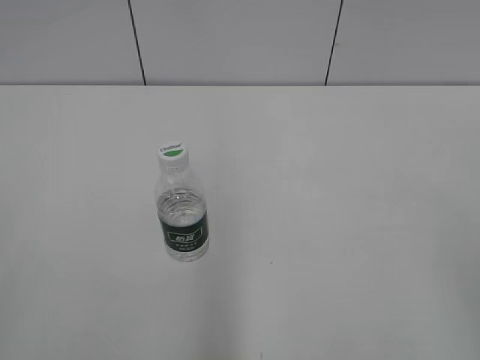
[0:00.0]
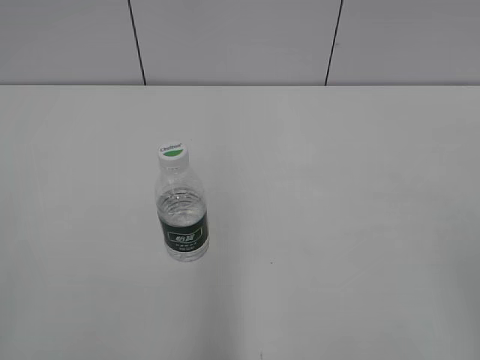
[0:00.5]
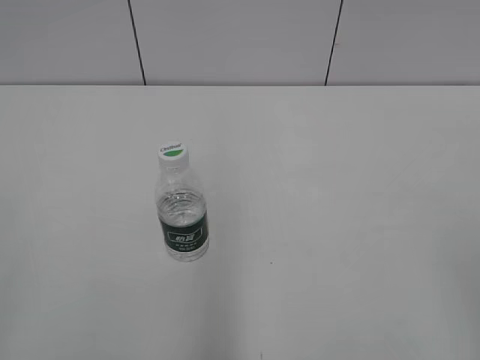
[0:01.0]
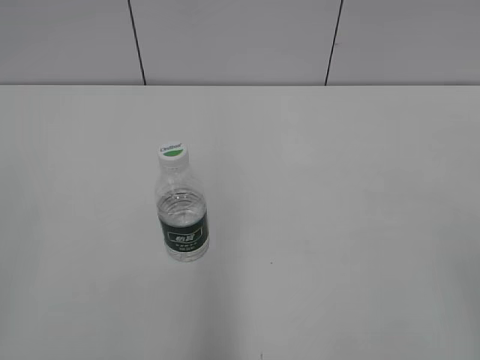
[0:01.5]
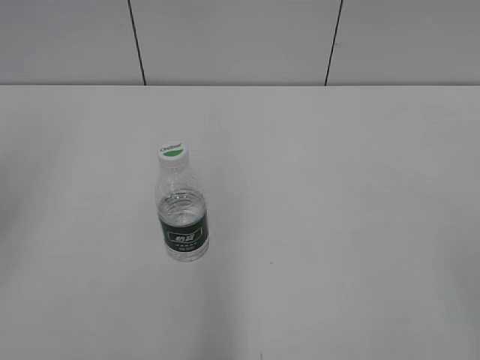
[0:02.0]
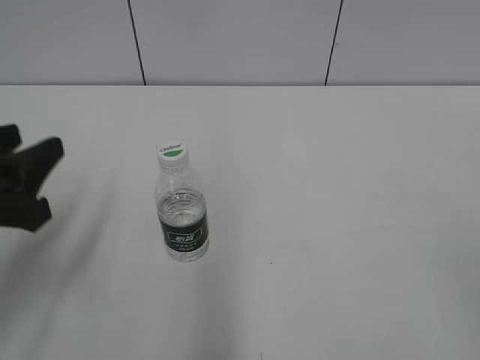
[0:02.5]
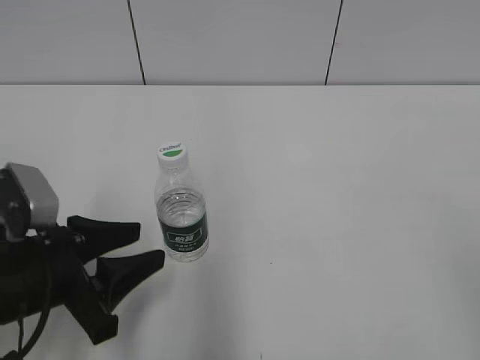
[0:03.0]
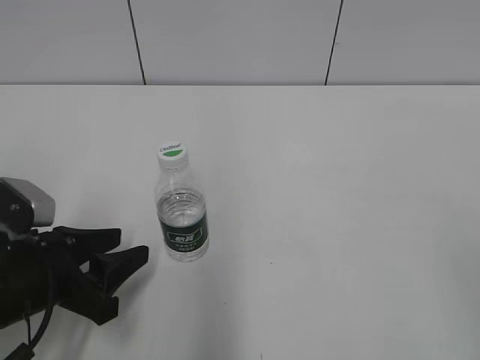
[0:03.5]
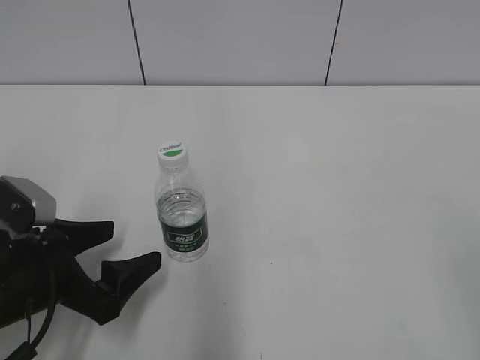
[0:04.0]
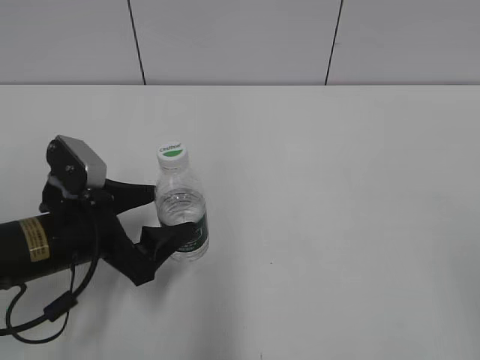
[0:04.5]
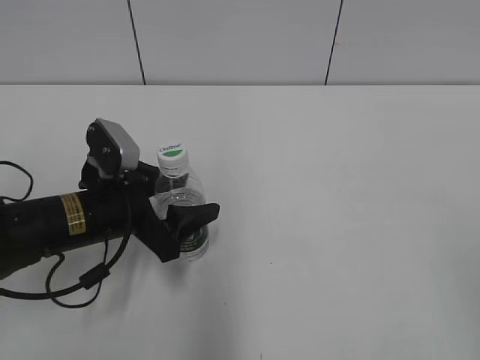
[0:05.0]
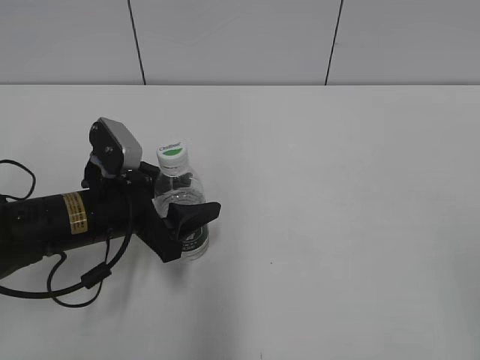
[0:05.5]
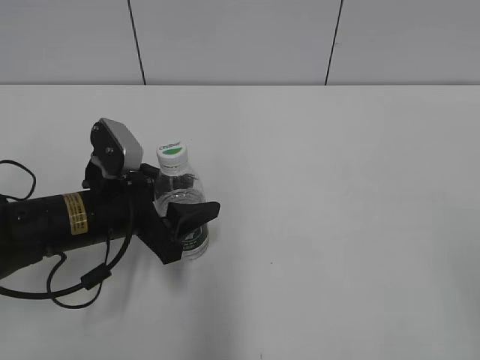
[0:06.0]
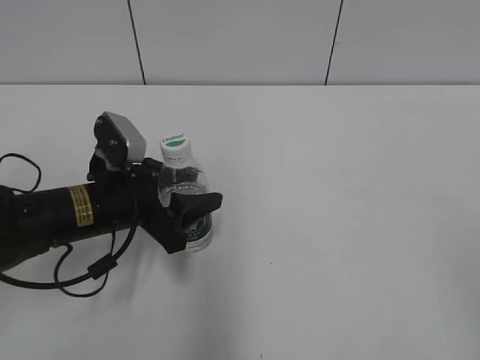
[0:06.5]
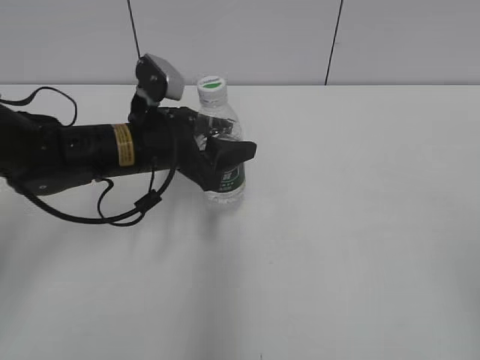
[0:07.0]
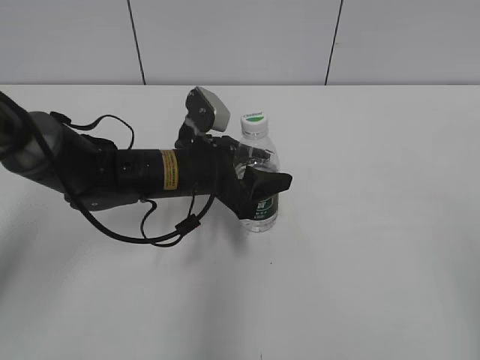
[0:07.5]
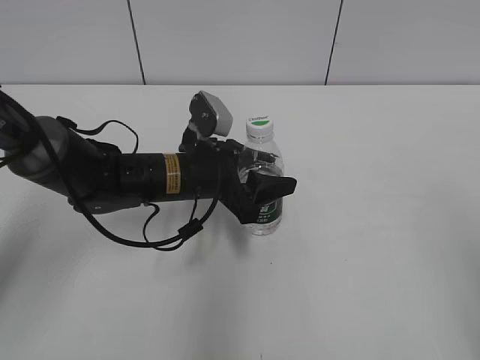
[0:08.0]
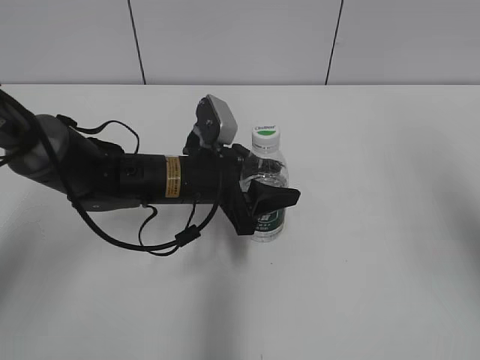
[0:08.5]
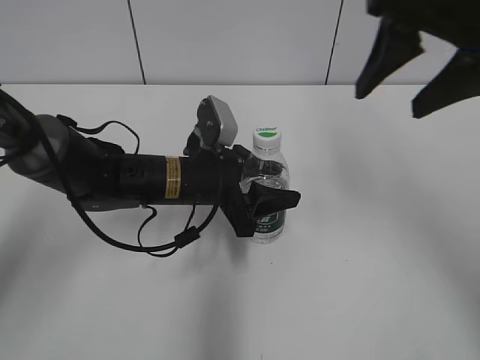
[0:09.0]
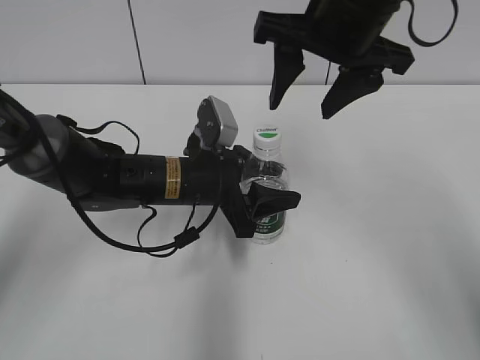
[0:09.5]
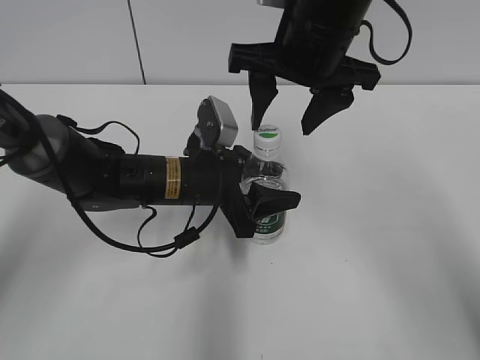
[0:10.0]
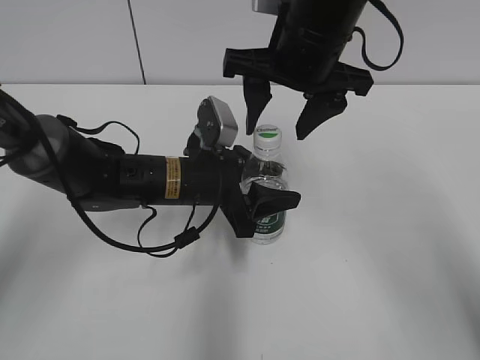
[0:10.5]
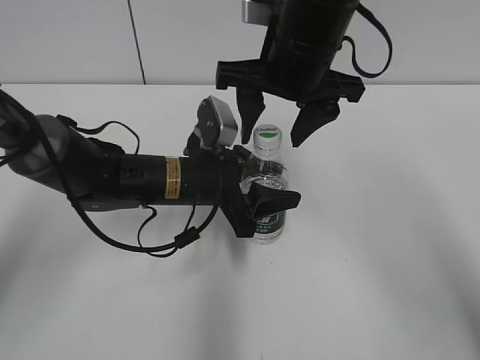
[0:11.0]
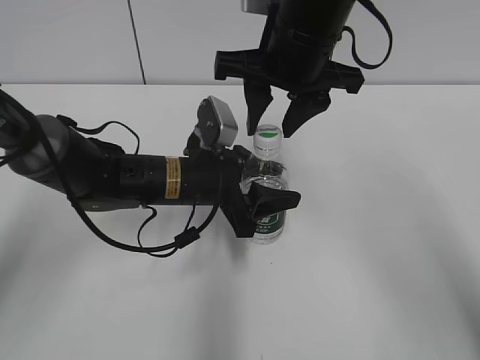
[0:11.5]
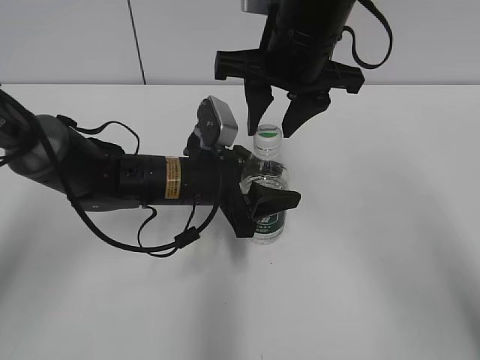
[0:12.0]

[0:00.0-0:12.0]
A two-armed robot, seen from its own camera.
Step, 0:00.0 to 0:05.5: Grasp the bottle and move it to the center of the table with the left gripper.
Step, 0:06.0 to 0:07.5: Lift the bottle and move it to the center of the table with the left gripper.
0:02.0 to 0:04.0: The left gripper shifts some 25 cm downward, and opens up.
0:04.0 to 0:06.0: The left gripper is displaced forward and to the right by roughly 10 cm, and closes.
0:06.0 to 0:08.0: The right gripper travels forward by some 5 cm; the left gripper heads to the right and forward, covering approximately 10 cm.
0:08.0 to 0:10.0: The right gripper moves forward and to the left, approximately 35 cm.
0:10.0 to 0:12.0: The right gripper closes.

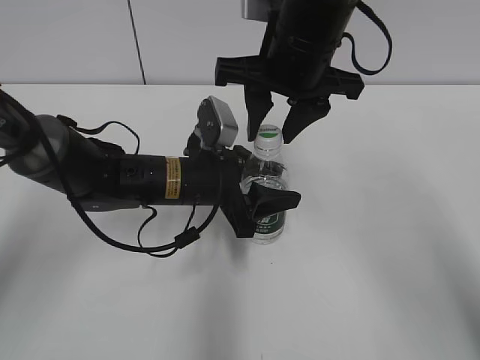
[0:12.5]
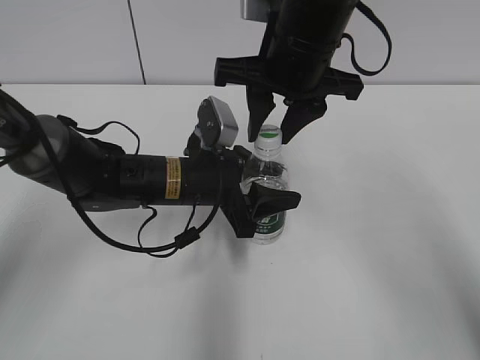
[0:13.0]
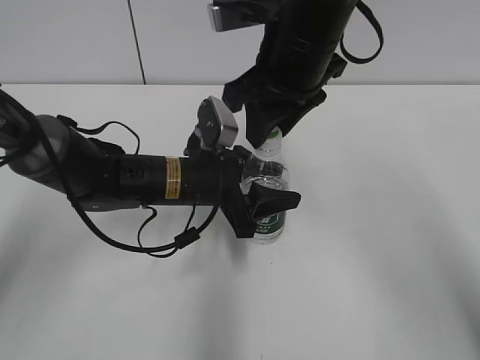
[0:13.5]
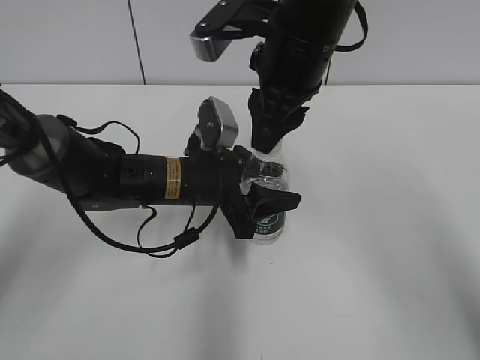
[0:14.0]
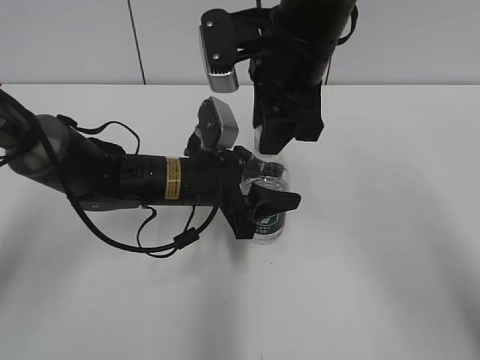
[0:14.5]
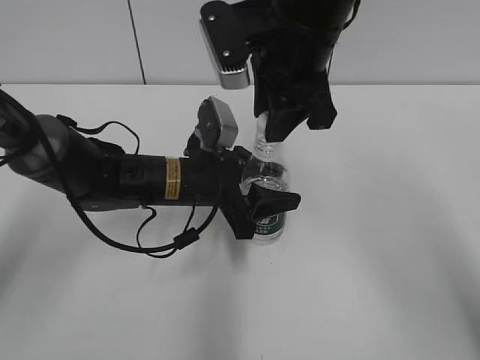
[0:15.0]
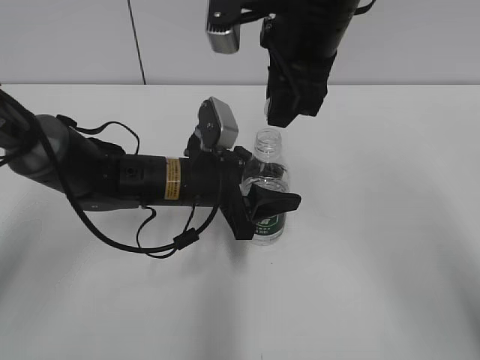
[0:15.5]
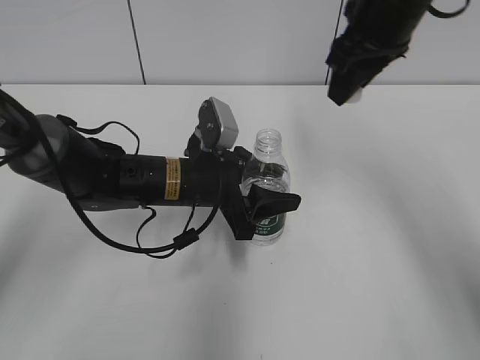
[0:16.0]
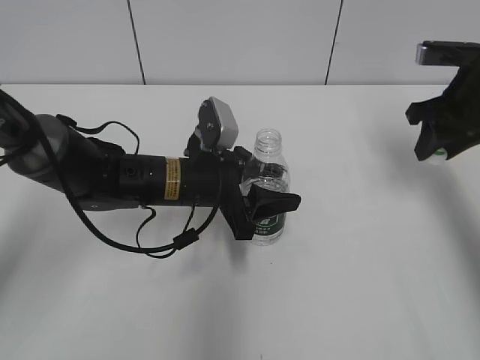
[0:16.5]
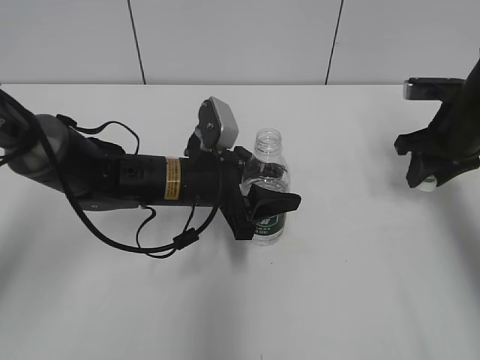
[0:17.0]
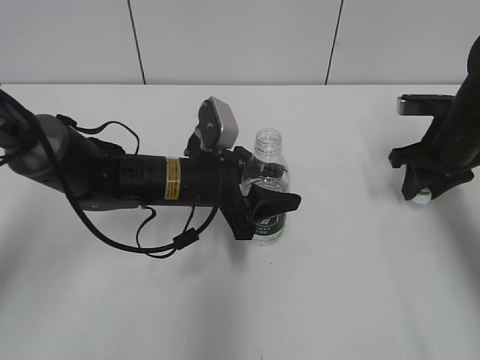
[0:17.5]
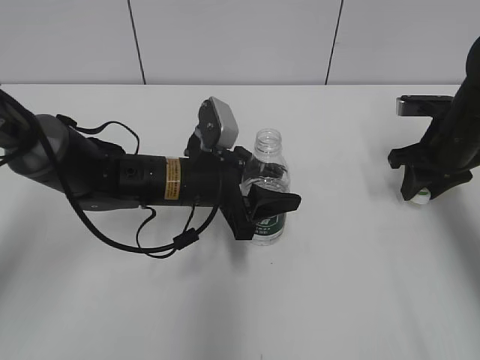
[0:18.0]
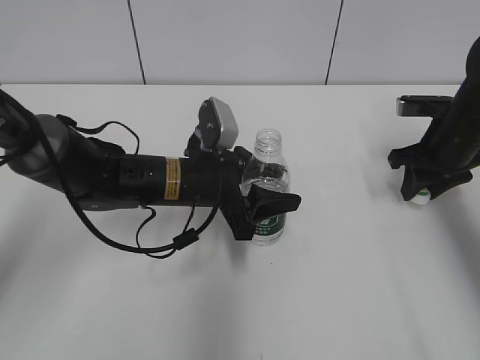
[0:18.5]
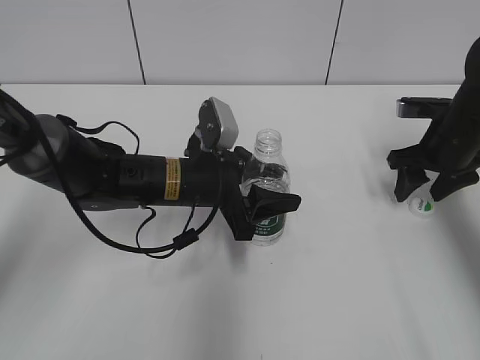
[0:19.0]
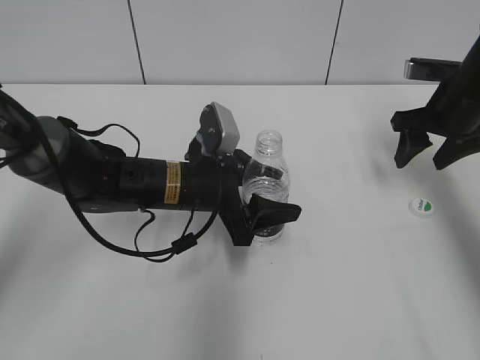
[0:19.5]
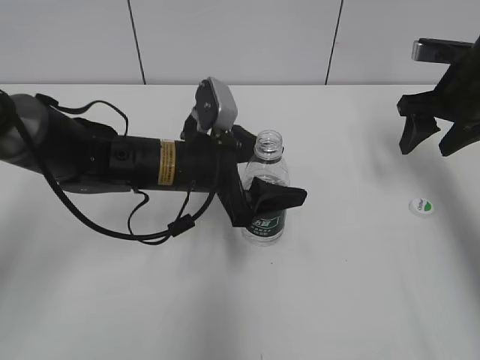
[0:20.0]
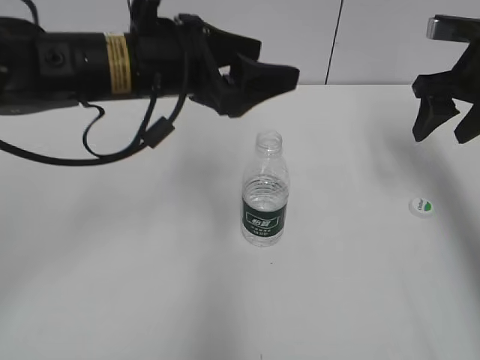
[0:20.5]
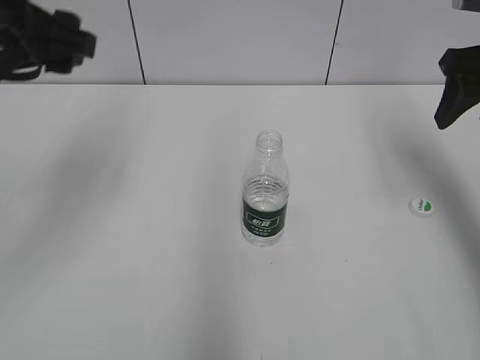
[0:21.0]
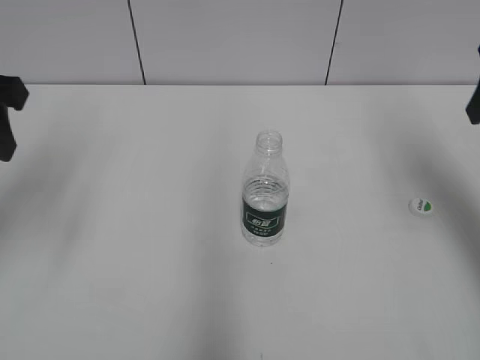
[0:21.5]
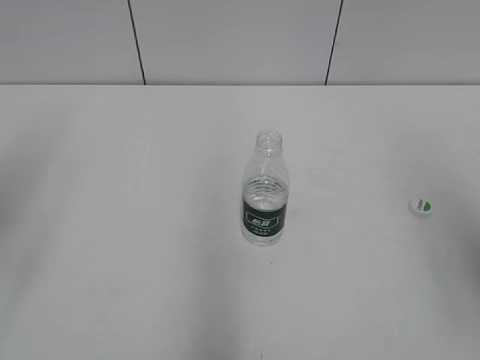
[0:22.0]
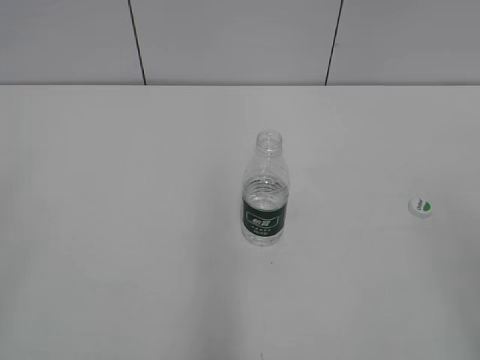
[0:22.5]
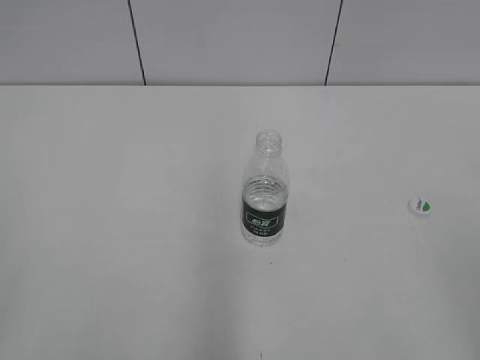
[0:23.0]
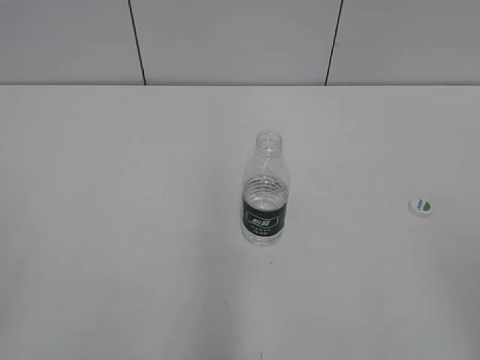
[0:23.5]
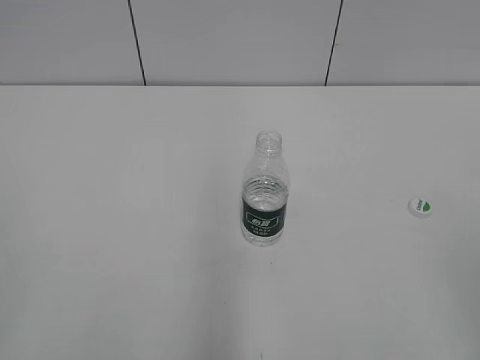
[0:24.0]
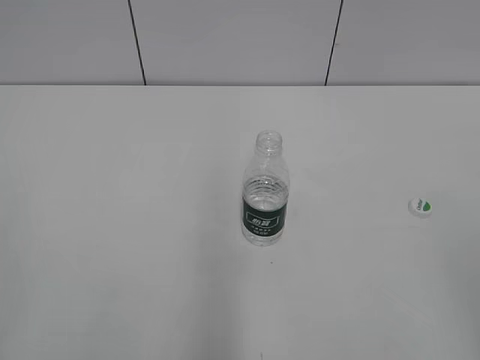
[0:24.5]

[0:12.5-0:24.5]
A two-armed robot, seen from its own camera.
Step, 0:12.5 to 0:15.5: Unscrew the bottle cap with the right gripper while holding the bottle with the left gripper.
Step, 0:16.0 to 0:19.0: Place the bottle cap on the table with the right gripper.
Step, 0:19.5 to 0:20.0: Place the bottle on the table with the left gripper.
0:14.5 to 0:16.5: The right gripper travels to the right by some 20 cm.
0:16.5 to 0:18.5: The right gripper shifts approximately 5 cm downward.
0:18.5 to 0:20.5: The two grippers go roughly 15 cm upward. The left gripper opens, while the right gripper opens up.
0:20.5 to 0:22.5: The left gripper is displaced backward and to the left by roughly 35 cm, and closes up. Meanwhile the right gripper is displaced backward by approximately 35 cm.

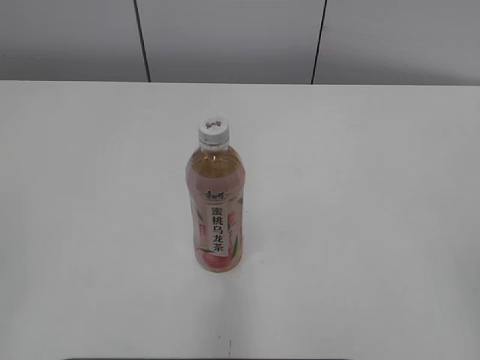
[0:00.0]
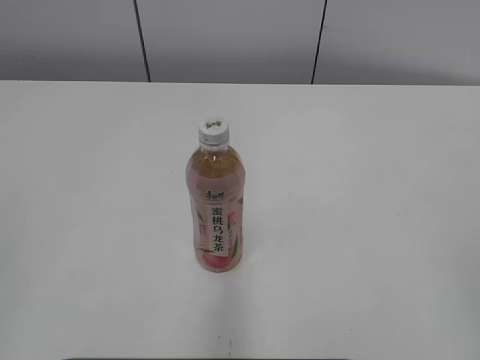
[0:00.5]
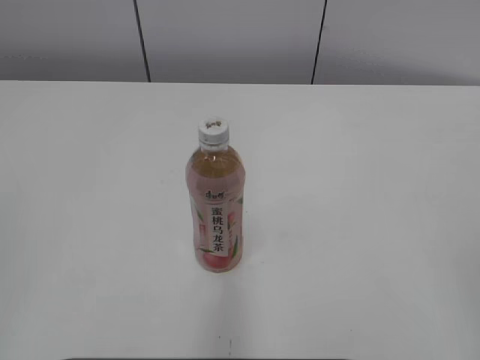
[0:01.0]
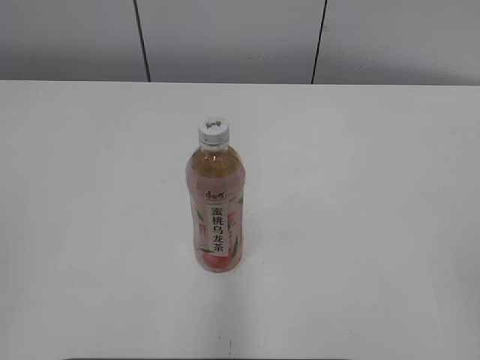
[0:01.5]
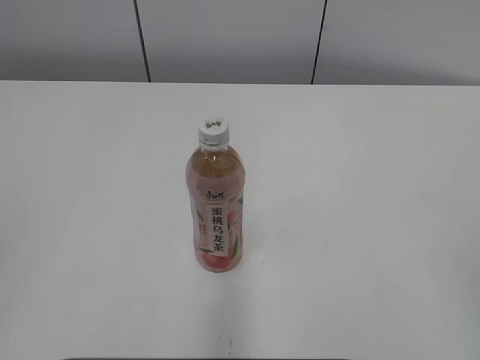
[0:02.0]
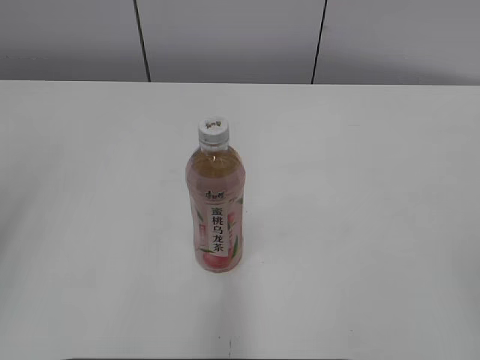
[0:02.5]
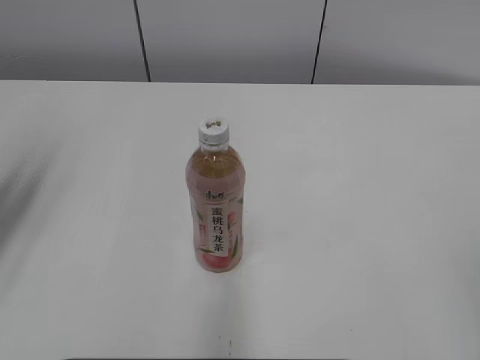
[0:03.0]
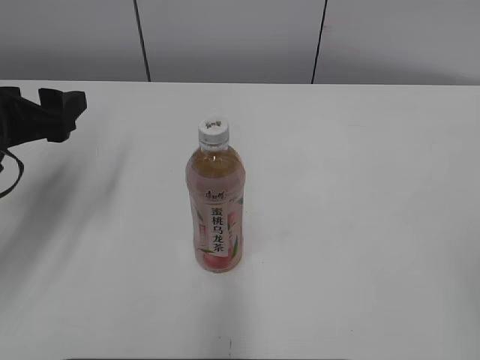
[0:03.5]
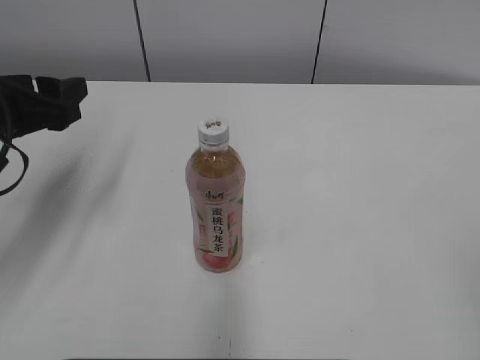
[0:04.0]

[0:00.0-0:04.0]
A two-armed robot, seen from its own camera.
0:02.0 to 0:04.0: The left gripper shifts roughly 30 cm forward, and opens.
